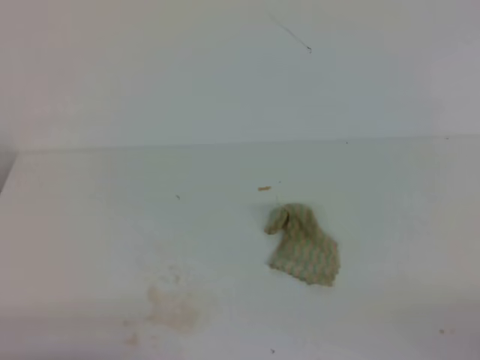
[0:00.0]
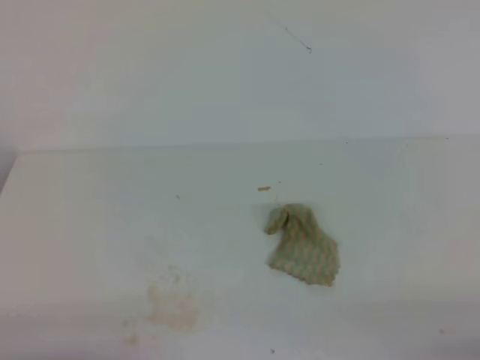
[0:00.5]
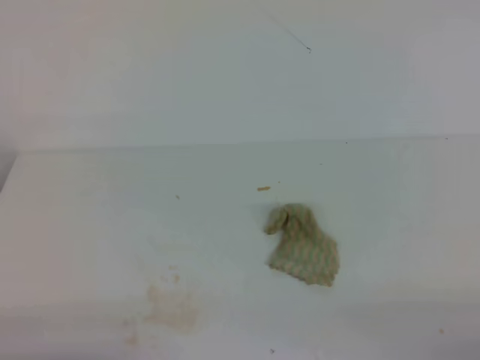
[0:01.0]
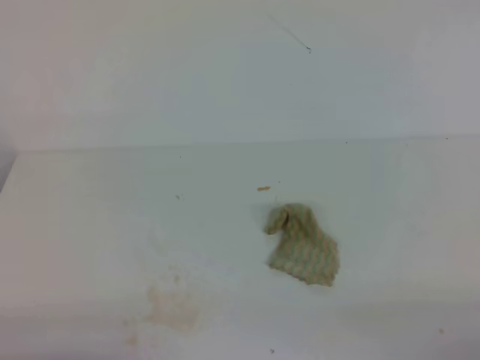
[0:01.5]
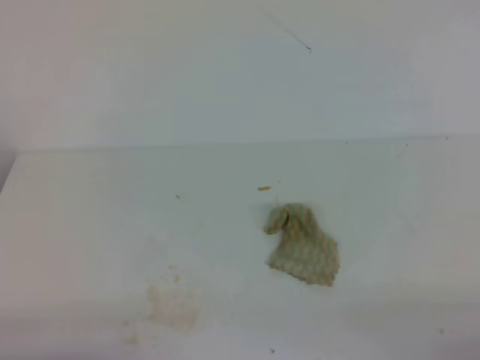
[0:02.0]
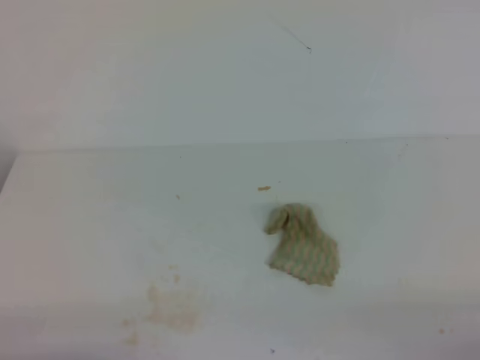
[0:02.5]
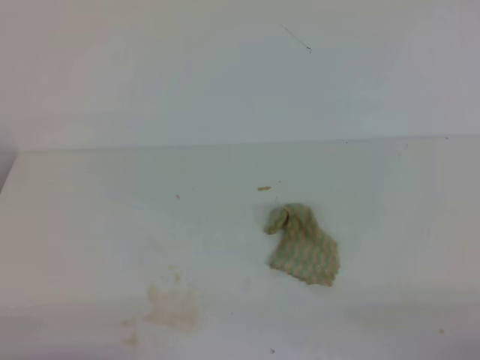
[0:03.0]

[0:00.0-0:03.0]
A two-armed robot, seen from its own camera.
0:01.5 to 0:03.0: The two grippers keep their place.

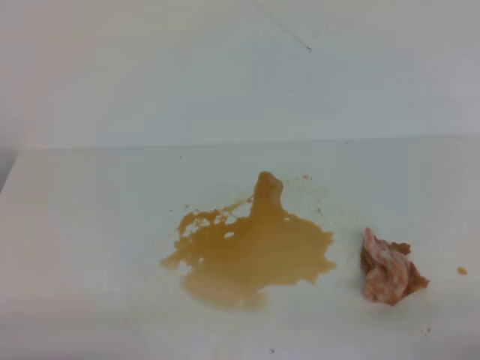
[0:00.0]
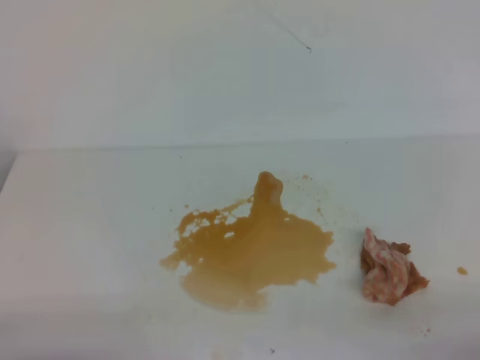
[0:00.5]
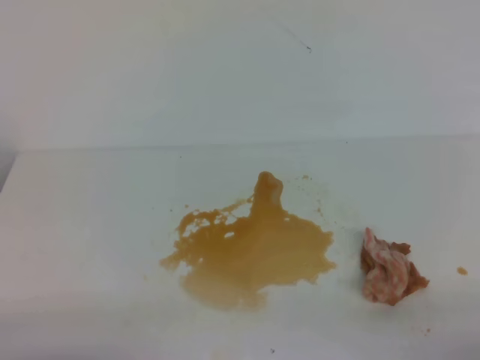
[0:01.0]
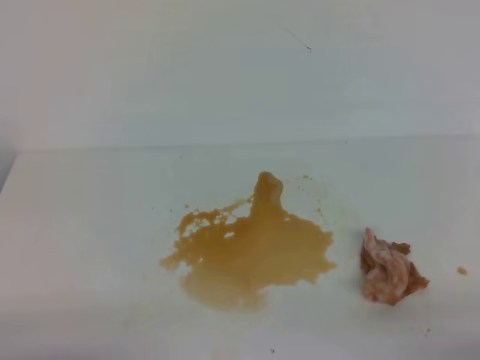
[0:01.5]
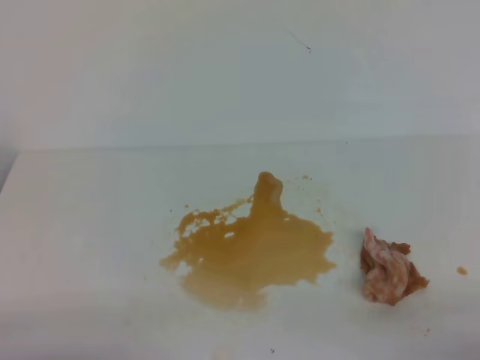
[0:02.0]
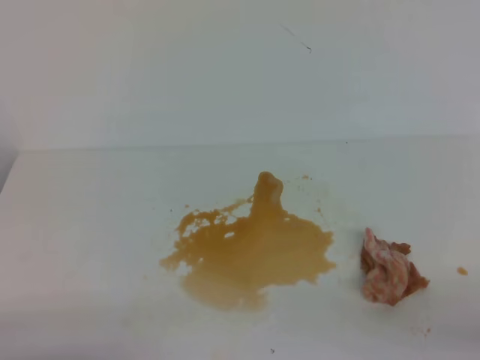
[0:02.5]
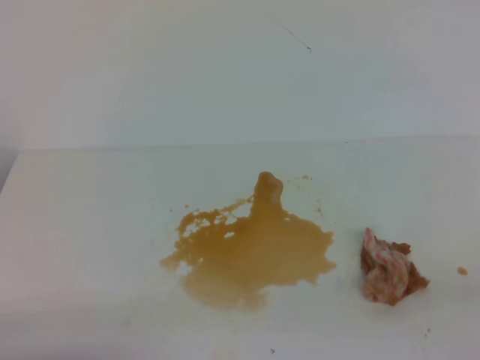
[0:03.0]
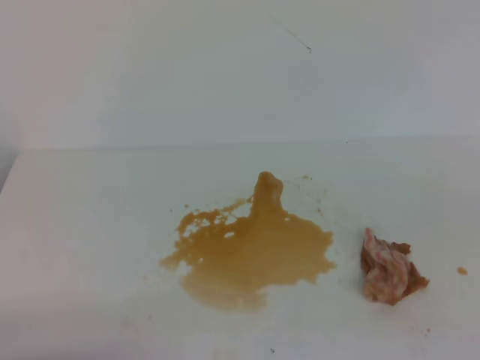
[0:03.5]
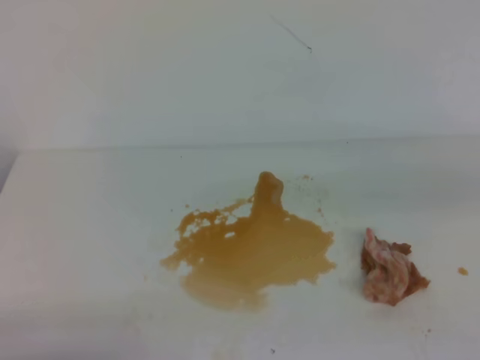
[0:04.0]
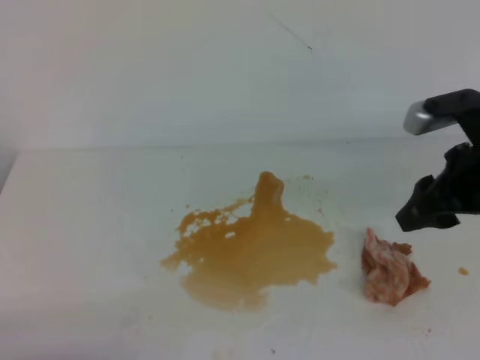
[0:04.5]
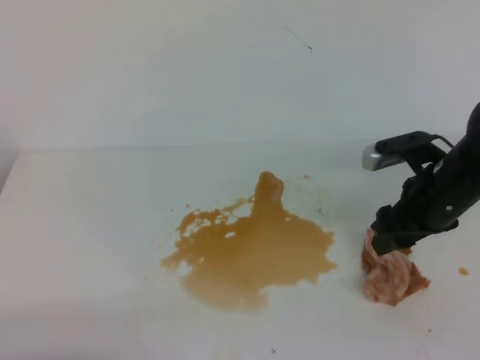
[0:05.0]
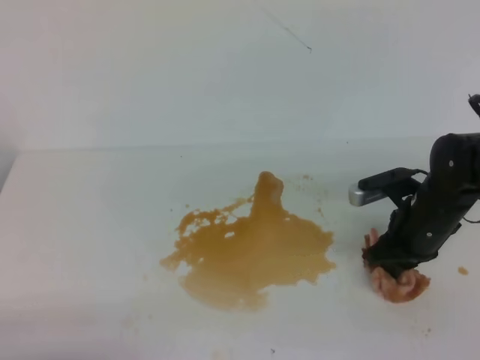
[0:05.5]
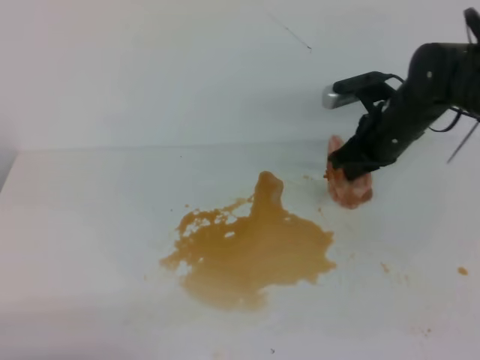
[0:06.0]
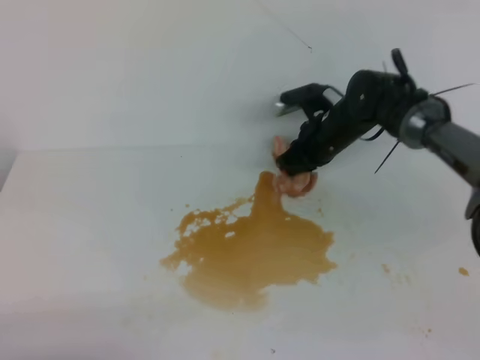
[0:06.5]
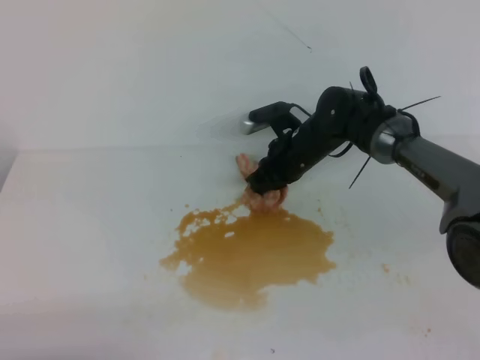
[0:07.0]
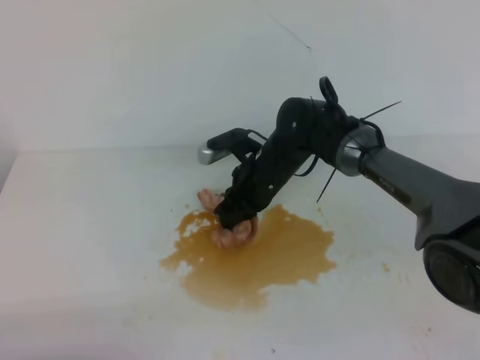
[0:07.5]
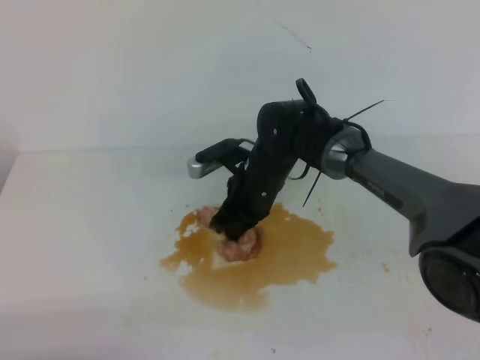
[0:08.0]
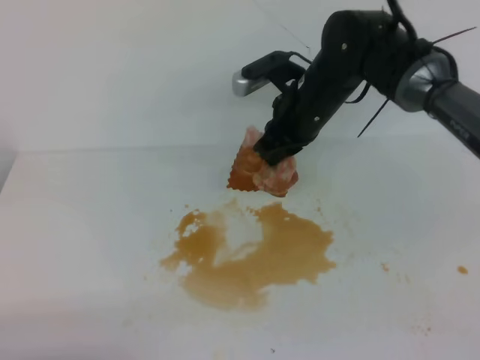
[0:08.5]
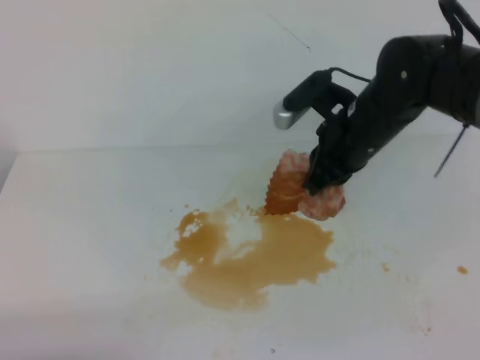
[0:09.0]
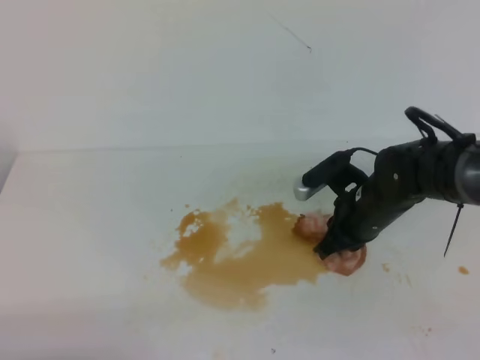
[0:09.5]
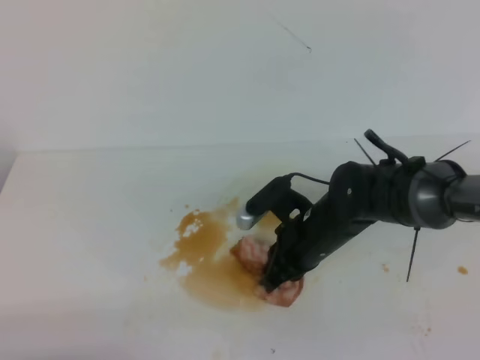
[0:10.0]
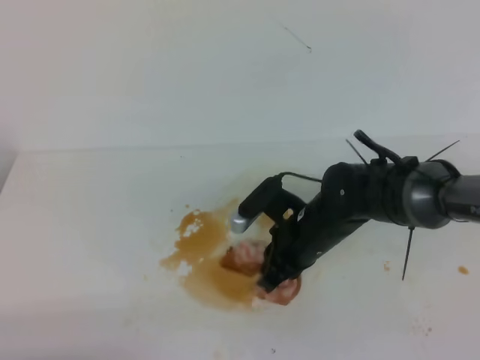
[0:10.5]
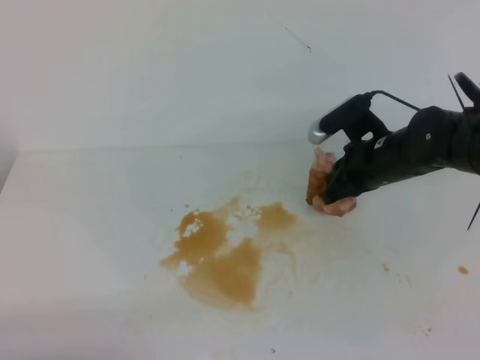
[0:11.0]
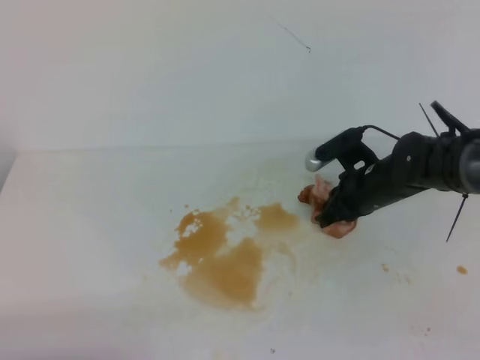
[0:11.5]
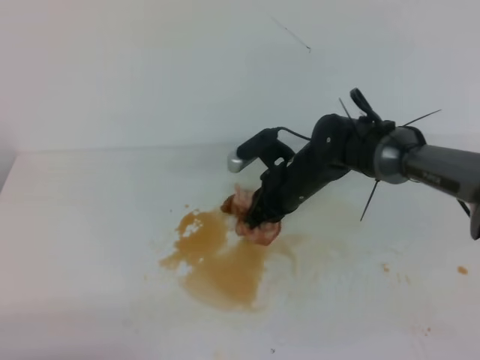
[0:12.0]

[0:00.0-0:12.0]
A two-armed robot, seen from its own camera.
0:00.0 to 0:02.0: Both grippers stay put.
0:04.0 to 0:06.0: The right gripper goes about 30 cm forward, downward and to the left, and opens and closes again.
0:06.0 to 0:08.0: The right gripper goes some 15 cm to the left.
0:08.0 to 0:10.0: The right gripper is displaced backward and to the right by roughly 10 cm.
0:10.0 to 0:12.0: The right gripper travels forward by approximately 10 cm, and moves about 5 cm to the right and comes back.

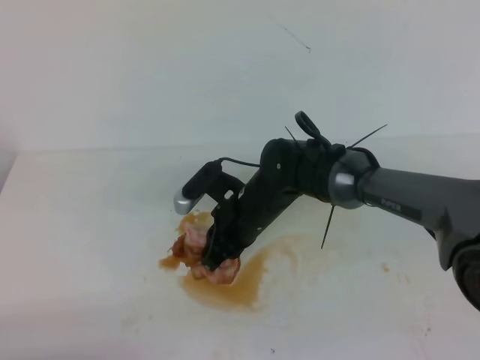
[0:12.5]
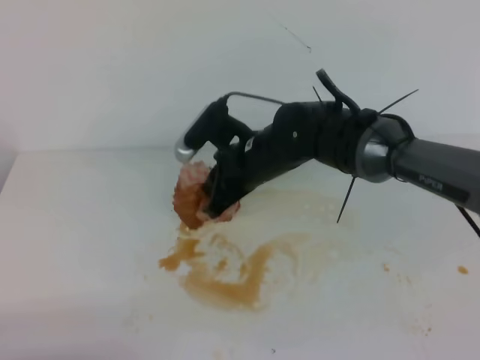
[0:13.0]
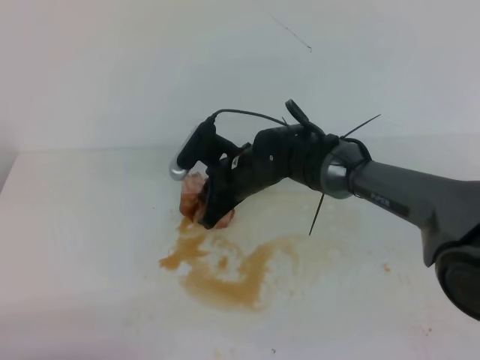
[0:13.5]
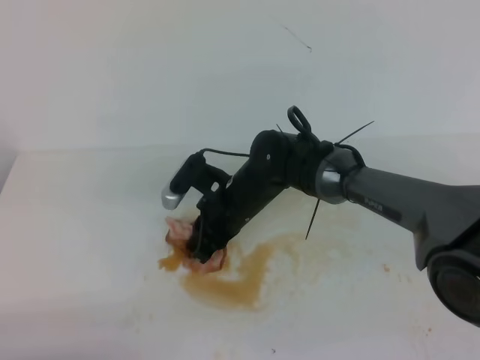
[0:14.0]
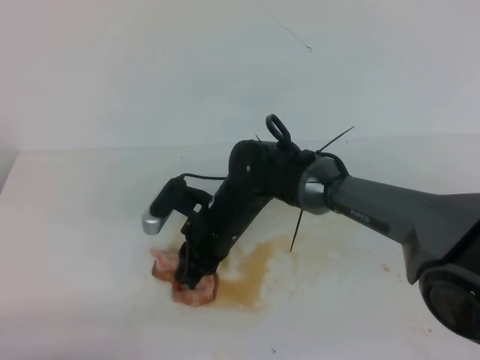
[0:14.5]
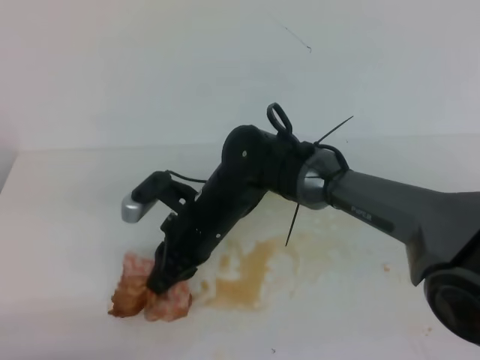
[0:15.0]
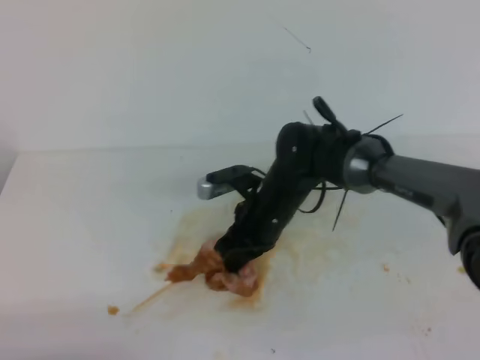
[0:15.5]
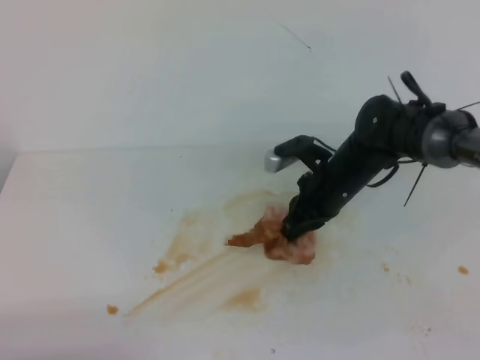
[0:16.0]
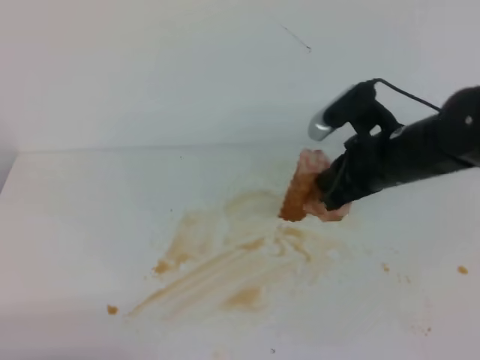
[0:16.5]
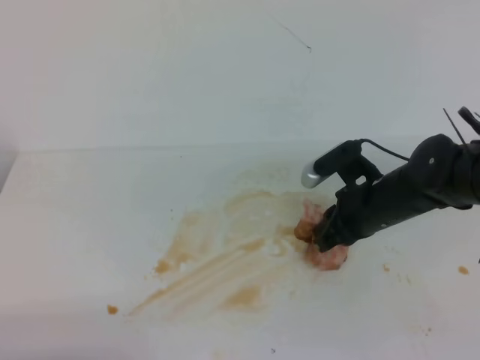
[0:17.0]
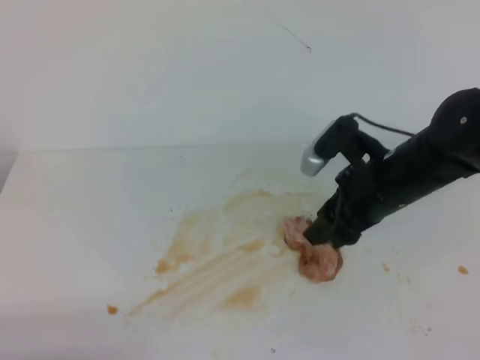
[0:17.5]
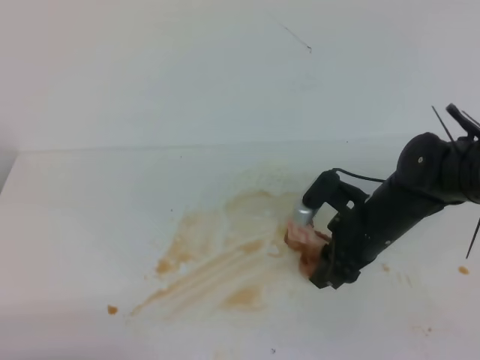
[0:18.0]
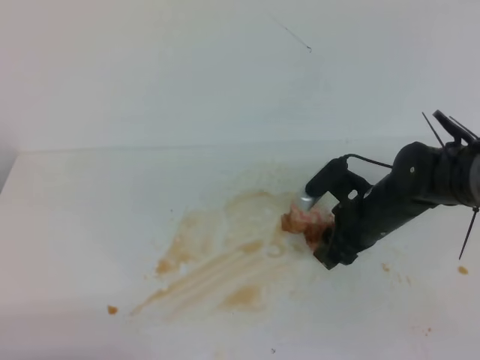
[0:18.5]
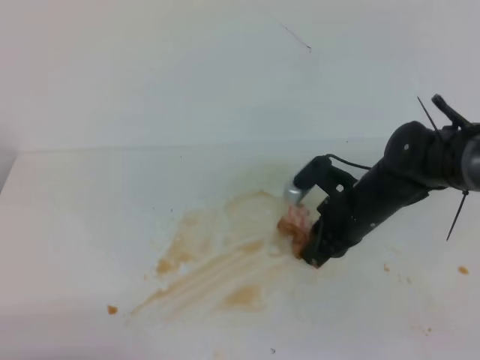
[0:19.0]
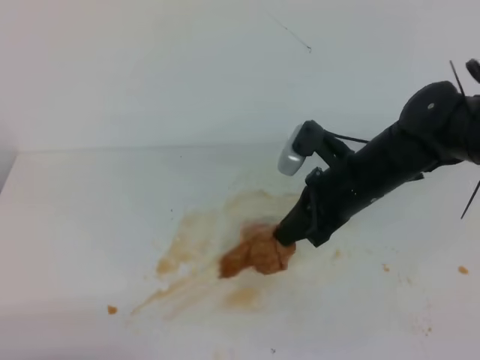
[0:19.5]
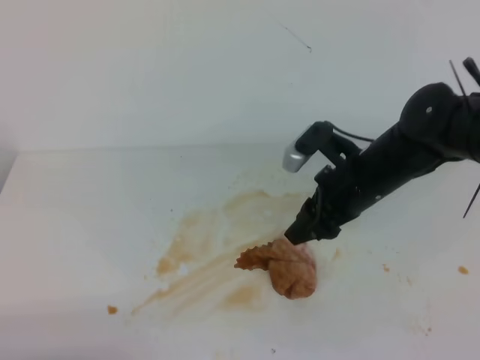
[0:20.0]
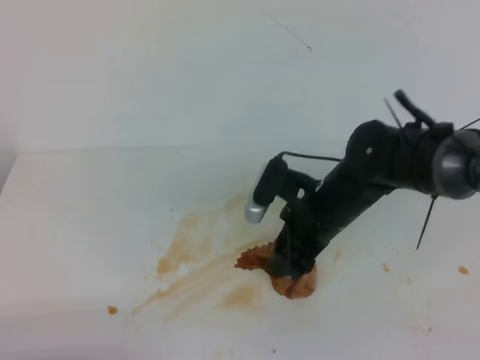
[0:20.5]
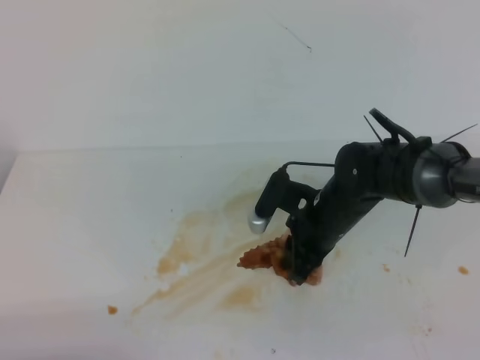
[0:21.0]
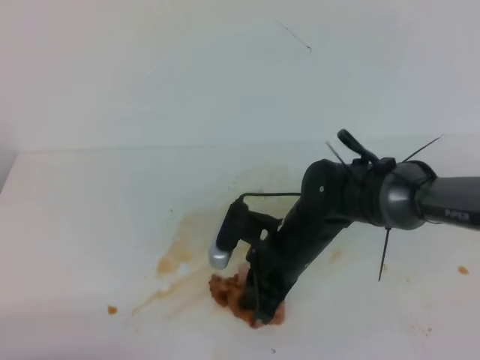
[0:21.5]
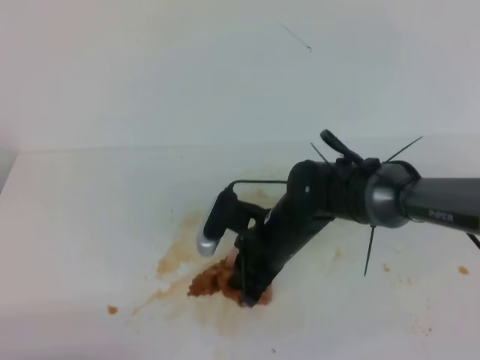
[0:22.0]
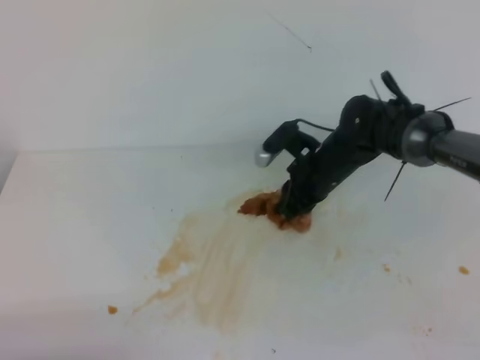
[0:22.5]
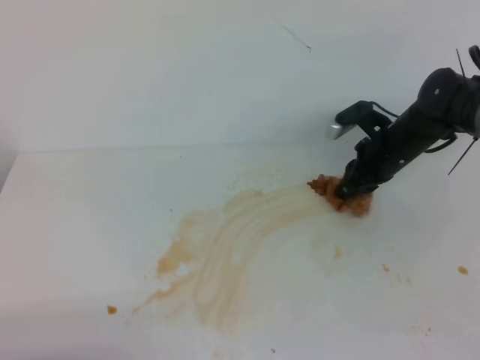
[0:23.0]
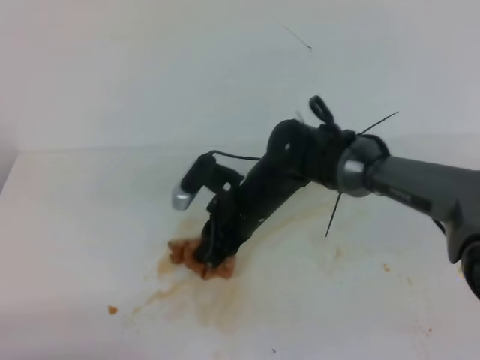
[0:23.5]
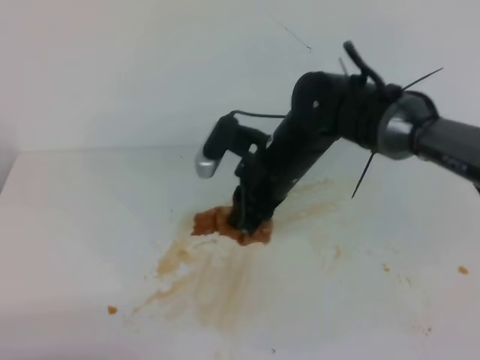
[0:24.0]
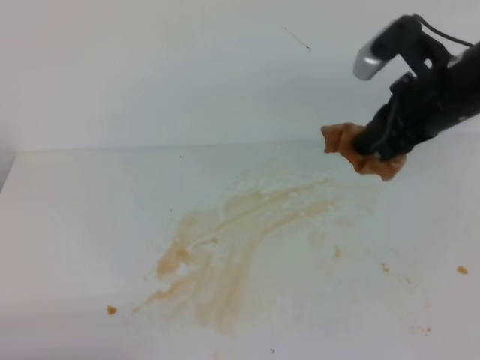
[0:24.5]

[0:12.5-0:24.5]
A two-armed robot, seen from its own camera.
0:12.5 to 0:14.5: The right gripper shifts by roughly 5 cm.
0:14.5 to 0:16.5: The right gripper shifts approximately 20 cm to the right and upward.
0:16.5 to 0:18.5: The right gripper swings up and down, about 10 cm each way, with 2 reversals, and opens.
0:18.5 to 0:20.5: The right gripper travels to the left and upward by approximately 10 cm, and closes, then reopens.
0:20.5 to 0:22.5: The right gripper travels forward by roughly 10 cm, and closes up.
0:22.5 to 0:24.5: The right gripper moves left and right over about 15 cm, changing direction 2 times.
